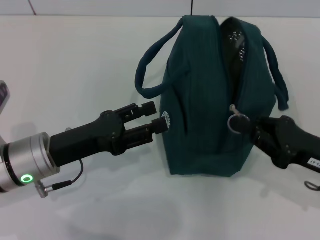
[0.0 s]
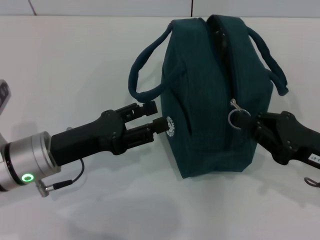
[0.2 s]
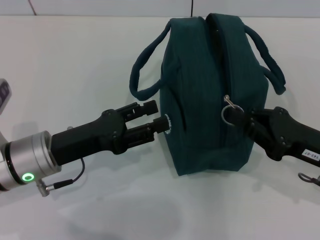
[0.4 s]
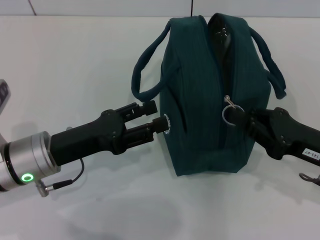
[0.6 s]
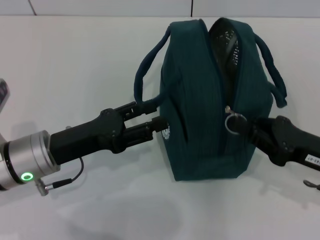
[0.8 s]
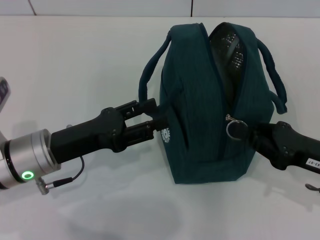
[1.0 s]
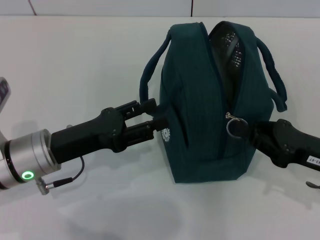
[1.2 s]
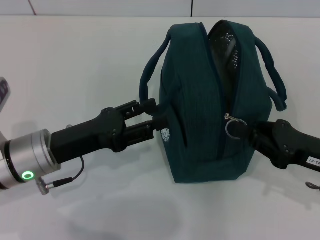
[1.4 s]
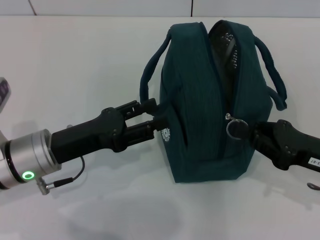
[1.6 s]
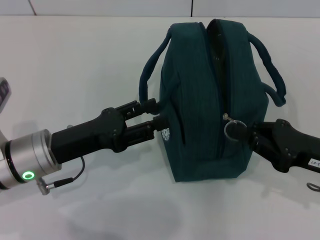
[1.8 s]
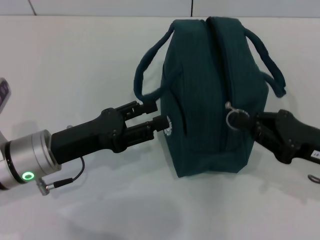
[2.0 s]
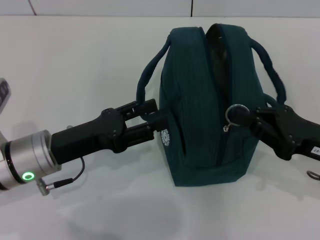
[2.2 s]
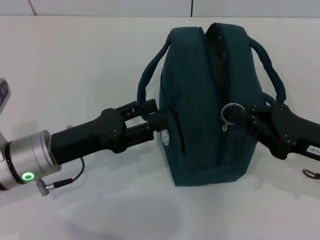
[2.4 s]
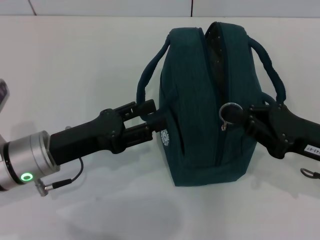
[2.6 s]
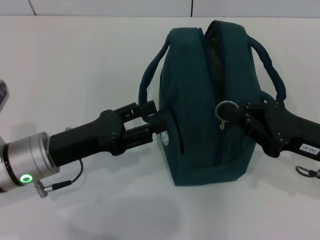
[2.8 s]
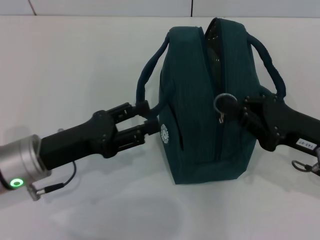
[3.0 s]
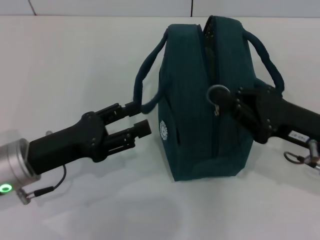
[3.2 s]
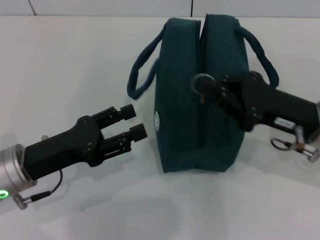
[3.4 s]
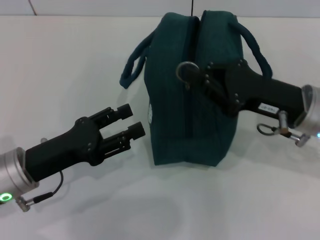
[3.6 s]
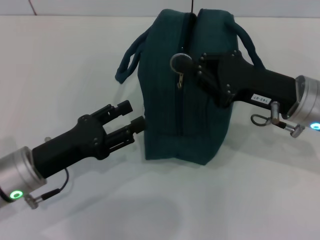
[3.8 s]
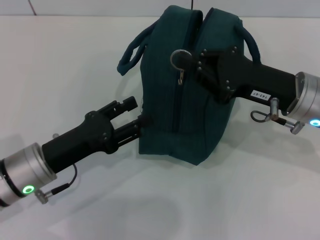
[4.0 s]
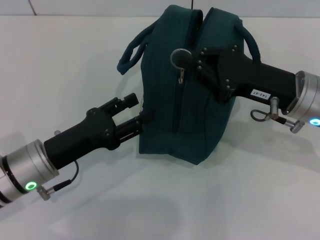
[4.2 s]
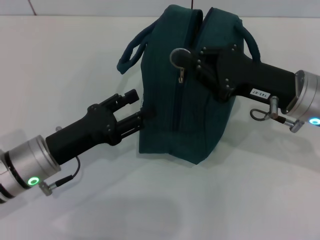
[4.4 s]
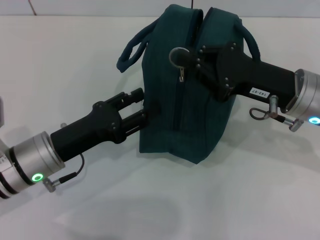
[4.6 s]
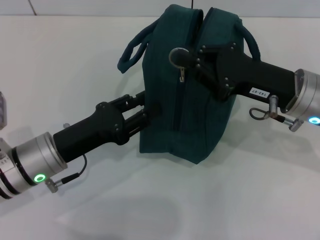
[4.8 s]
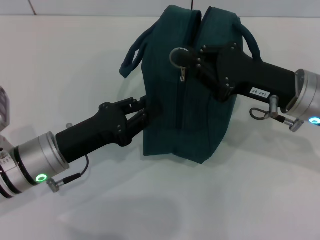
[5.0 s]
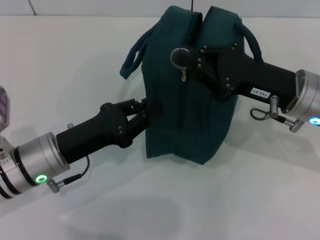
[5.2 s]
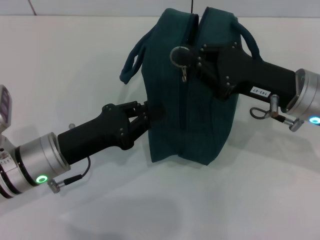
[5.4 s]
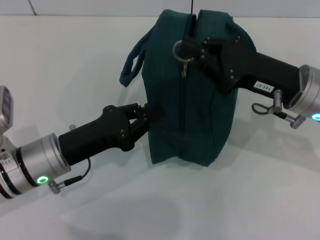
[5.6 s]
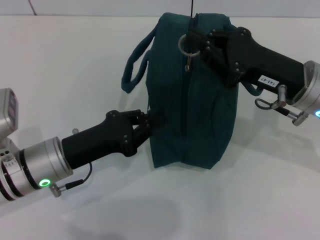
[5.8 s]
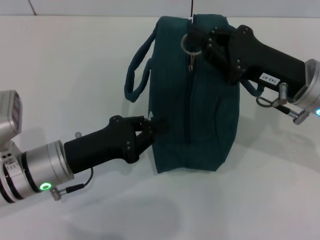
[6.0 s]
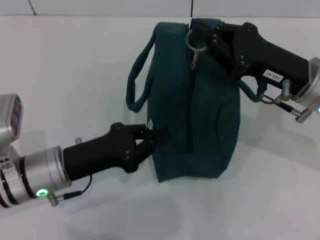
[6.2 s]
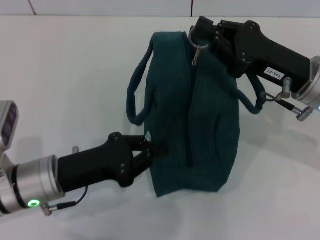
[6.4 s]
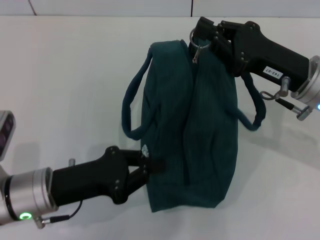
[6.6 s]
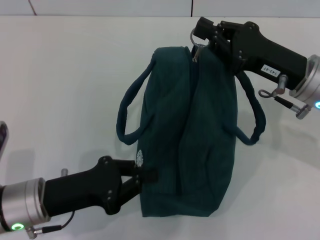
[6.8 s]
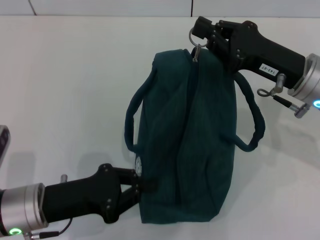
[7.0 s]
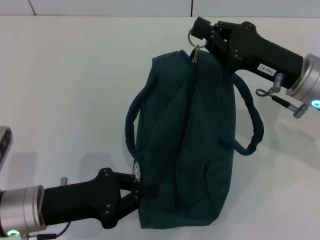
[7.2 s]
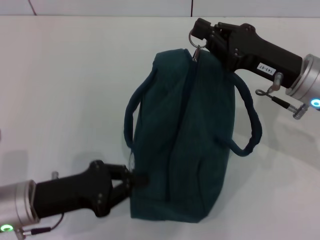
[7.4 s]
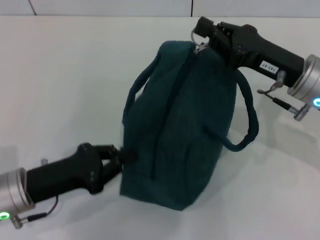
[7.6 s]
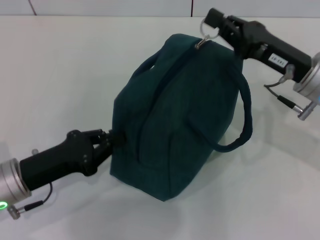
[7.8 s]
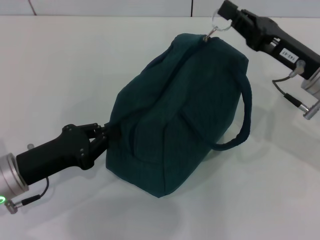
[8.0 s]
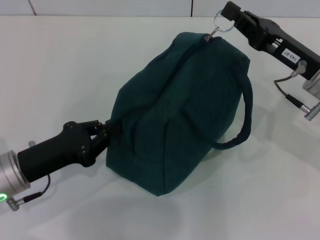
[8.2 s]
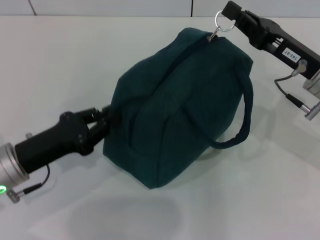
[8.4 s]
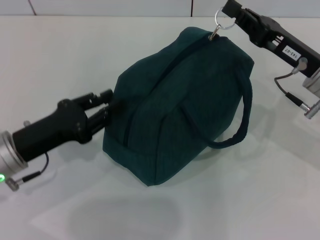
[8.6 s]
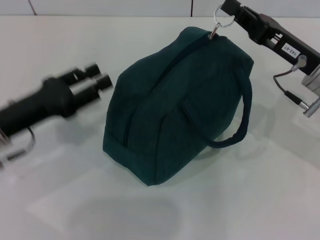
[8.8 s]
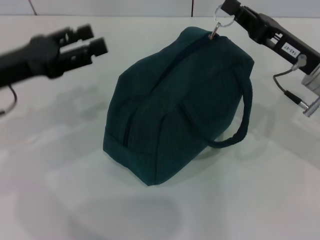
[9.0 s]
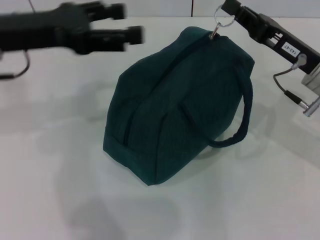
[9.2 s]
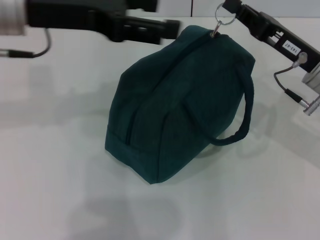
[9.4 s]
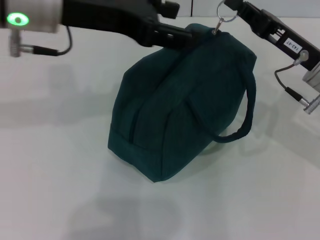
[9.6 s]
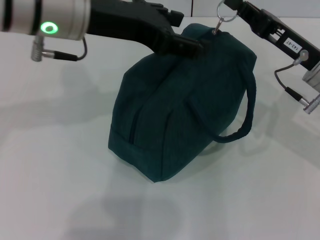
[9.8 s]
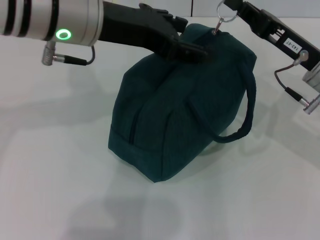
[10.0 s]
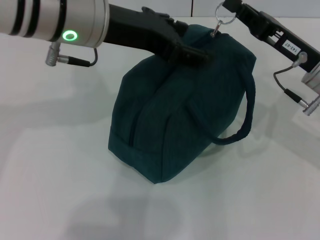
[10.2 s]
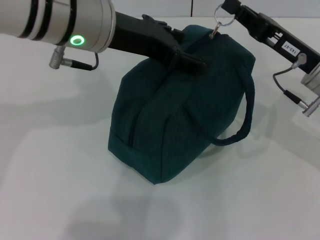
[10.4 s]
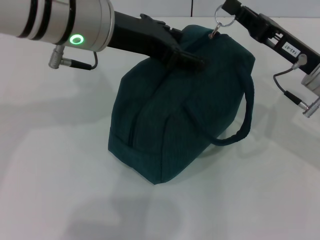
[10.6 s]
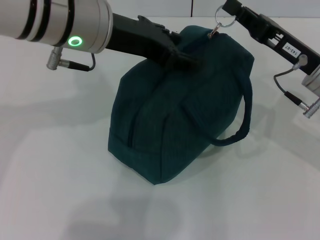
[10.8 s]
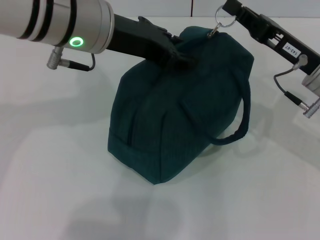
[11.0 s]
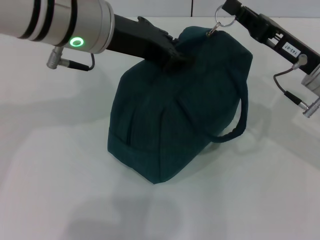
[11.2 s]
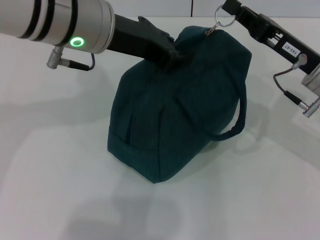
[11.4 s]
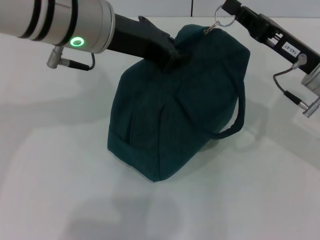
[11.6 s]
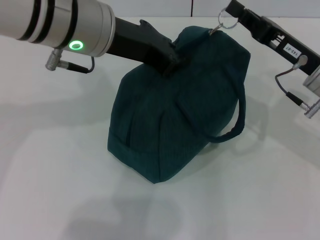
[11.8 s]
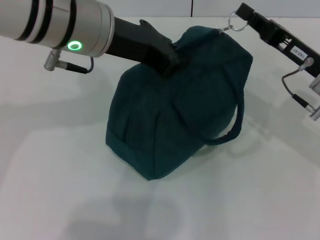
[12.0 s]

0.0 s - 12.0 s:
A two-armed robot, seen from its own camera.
0.0 s - 3.0 s: The grippers stay close to where they were, moving slightly.
3.0 s - 4.4 s: The right gripper goes approximately 10 cm to the left and forward.
4.4 s - 6.0 s: The left gripper closes up.
6.0 s - 7.6 s: The left gripper moves about 5 cm.
7.6 s - 9.0 s: The left gripper is displaced upward and forward by approximately 15 cm, and opens.
9.0 s - 10.4 s: The left gripper is displaced to the right and upward by roughly 20 cm.
10.4 s - 12.0 s: The left gripper closes.

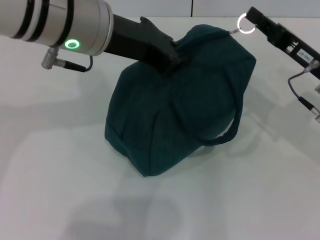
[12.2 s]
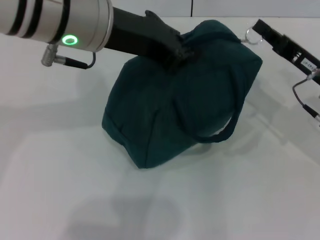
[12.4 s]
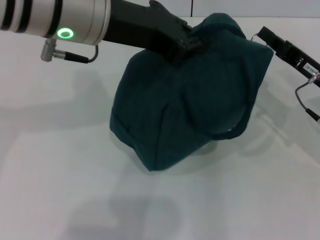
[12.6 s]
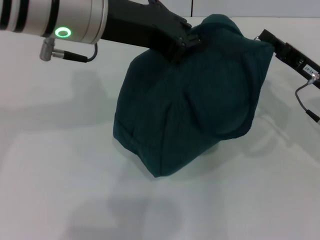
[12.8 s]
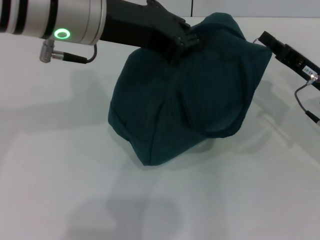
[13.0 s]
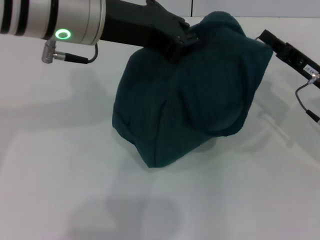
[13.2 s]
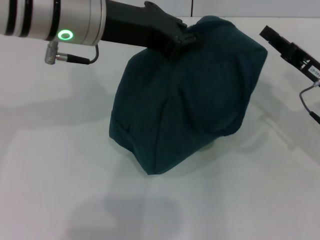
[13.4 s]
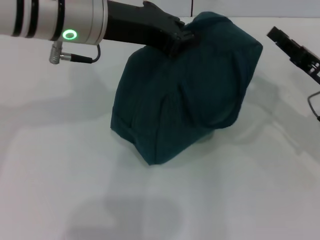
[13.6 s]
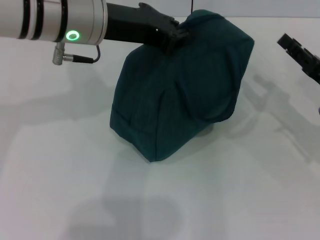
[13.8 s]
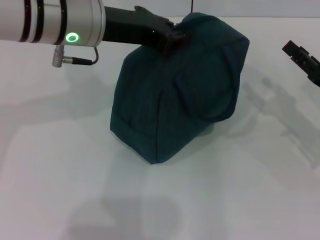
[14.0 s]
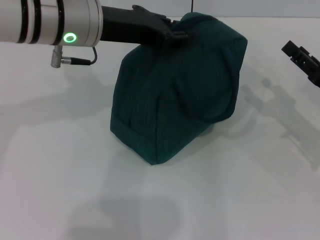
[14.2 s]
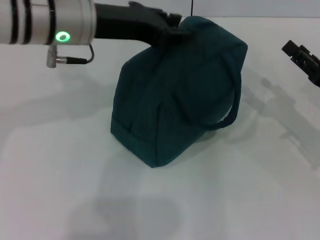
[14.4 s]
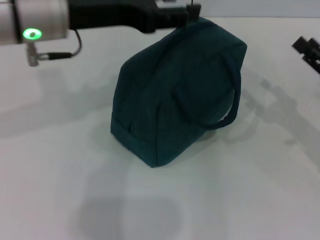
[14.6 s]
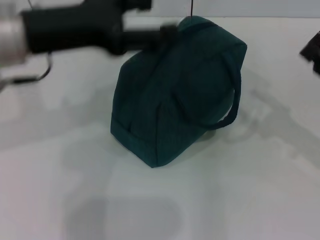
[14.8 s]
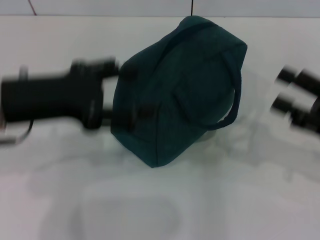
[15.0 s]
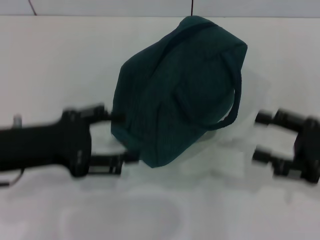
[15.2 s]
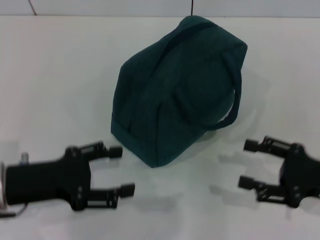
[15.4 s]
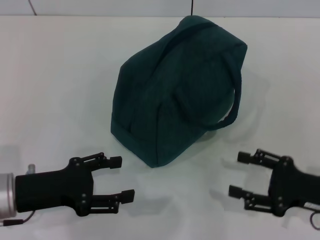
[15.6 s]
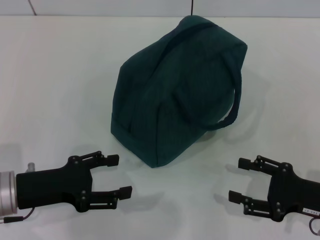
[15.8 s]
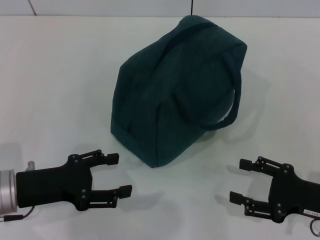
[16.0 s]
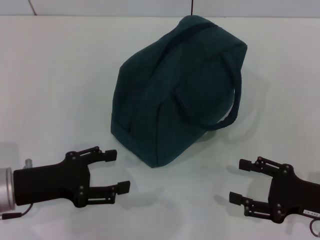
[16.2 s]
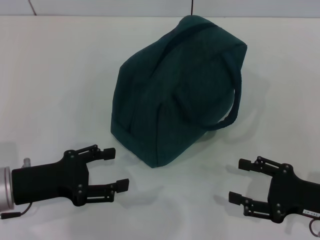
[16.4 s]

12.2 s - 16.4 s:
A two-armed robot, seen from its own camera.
Step, 13.4 s - 14.4 s: Hold the lunch bag with your left hand.
12.2 s - 13.6 s: The grippers stay close to where they were, moving slightly.
13.6 s - 15.0 s: The right gripper moves backward, approximately 5 cm, and opens up. Meanwhile the left gripper is displaced to the left and backward by about 15 cm, and opens its fingers.
15.0 s - 16.4 s: The right gripper is displaced downward by some 10 cm; the left gripper goes roughly 15 cm downward.

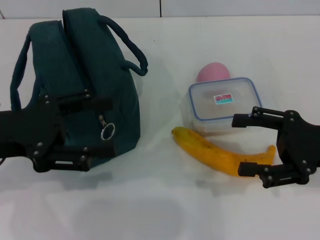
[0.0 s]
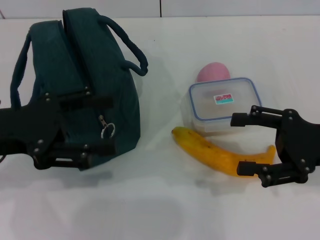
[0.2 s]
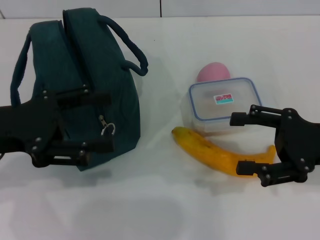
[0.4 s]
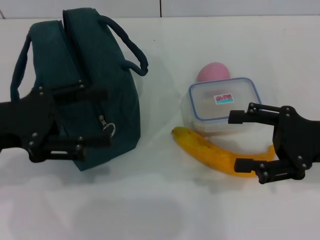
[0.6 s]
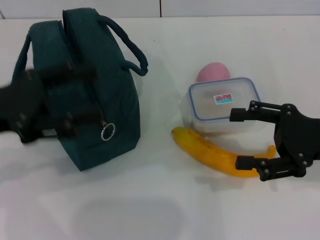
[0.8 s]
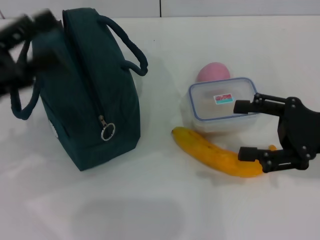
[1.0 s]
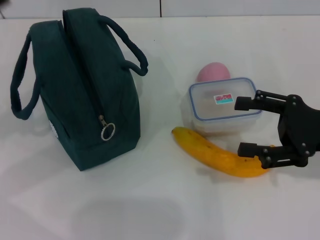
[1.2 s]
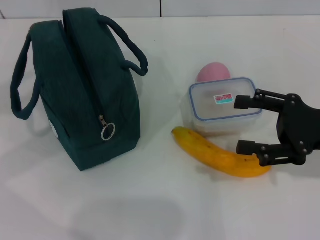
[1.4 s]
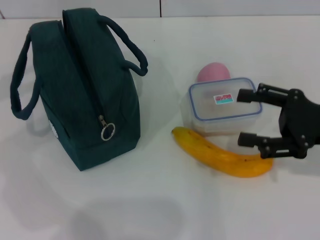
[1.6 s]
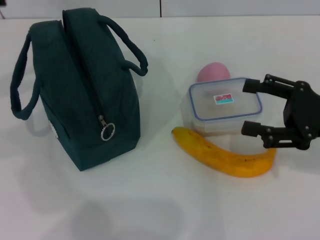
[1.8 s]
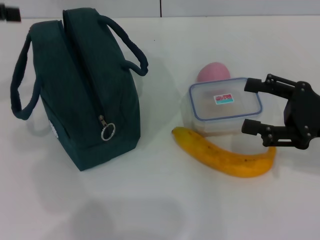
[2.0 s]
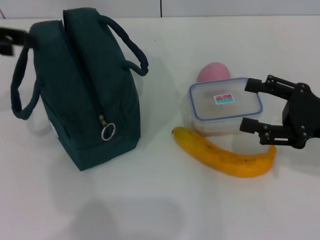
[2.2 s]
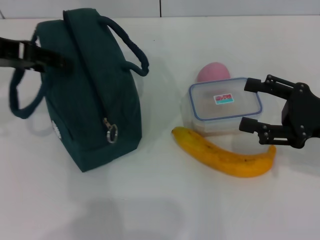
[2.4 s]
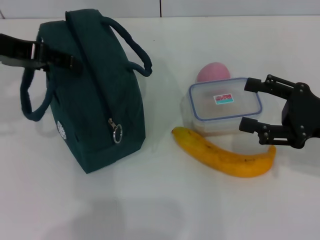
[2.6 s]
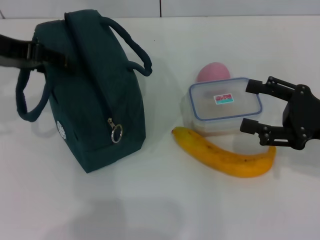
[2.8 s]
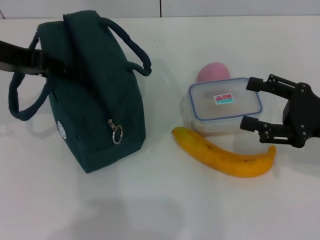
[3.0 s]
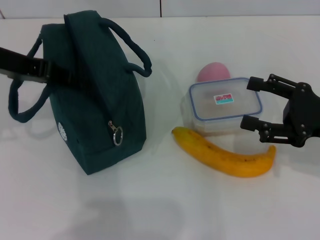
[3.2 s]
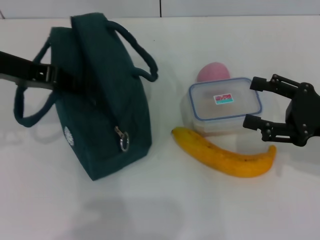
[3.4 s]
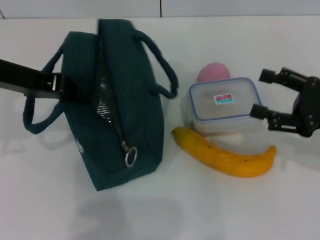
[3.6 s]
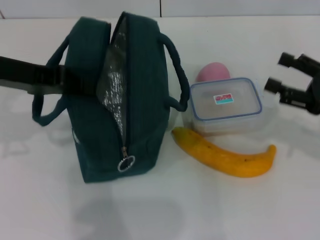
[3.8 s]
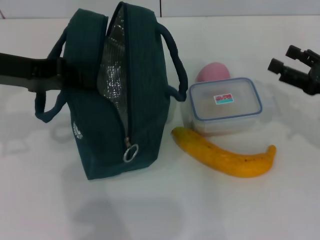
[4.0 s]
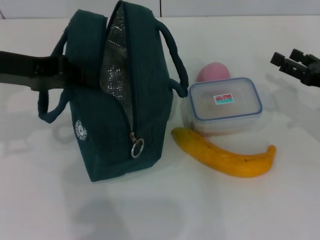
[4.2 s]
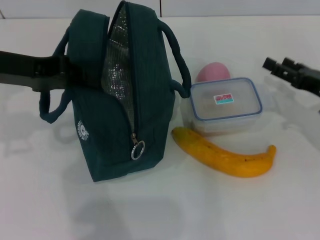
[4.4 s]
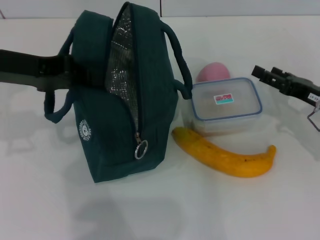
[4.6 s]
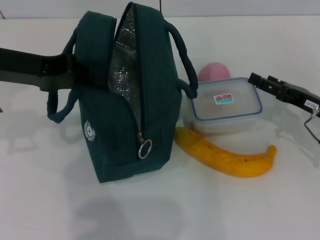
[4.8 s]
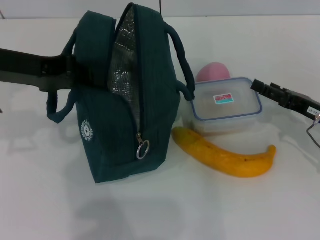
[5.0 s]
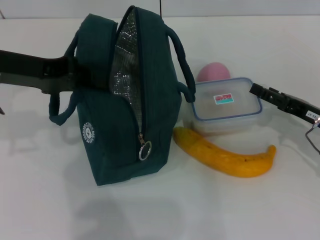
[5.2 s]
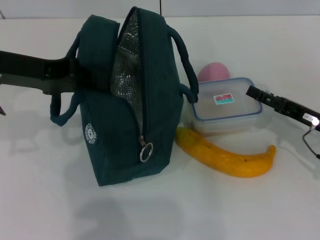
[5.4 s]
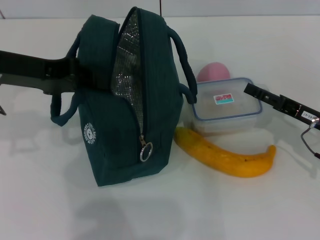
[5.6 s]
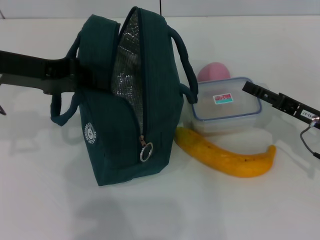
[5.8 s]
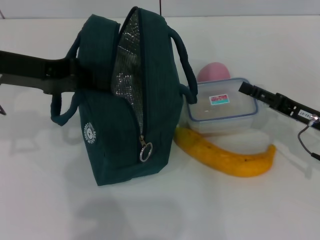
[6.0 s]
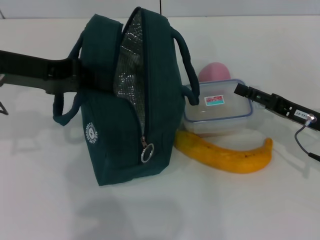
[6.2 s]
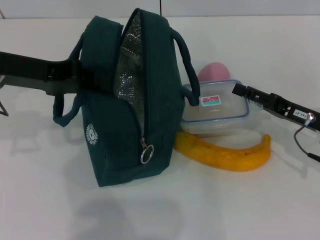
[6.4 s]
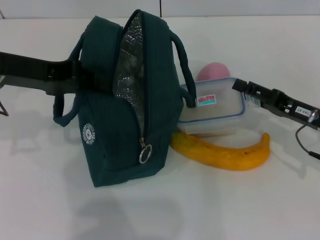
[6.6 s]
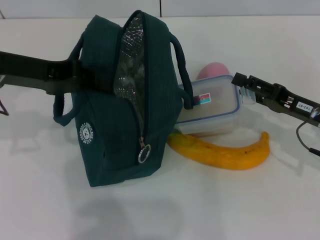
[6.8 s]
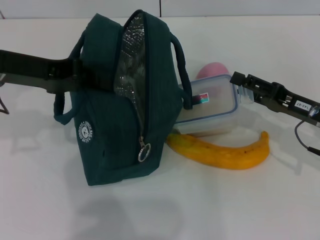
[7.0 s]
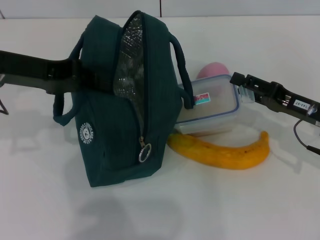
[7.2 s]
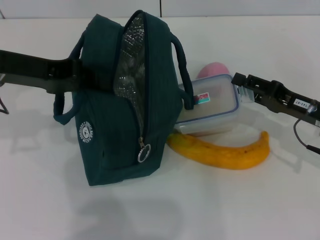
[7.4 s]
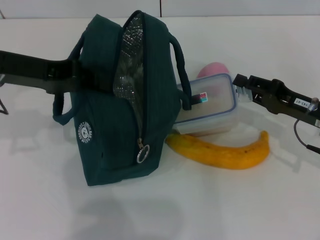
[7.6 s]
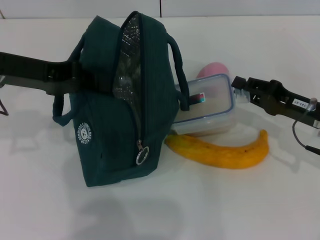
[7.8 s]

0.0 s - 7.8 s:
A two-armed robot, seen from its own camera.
Step, 0.0 s - 3.8 s: Hold the lunch bag with your left hand.
0.0 s - 1.6 s: The left gripper goes roughly 15 cm to the left, upward and forward.
1.6 s - 3.2 s: The left gripper goes some 10 cm to the right.
3.2 s - 4.6 s: The right gripper goes roughly 5 cm downward and forward; the left gripper closes up.
4.6 s - 6.2 s: There are only small adjustments of the grippers.
6.2 s - 7.8 s: The right gripper closes.
